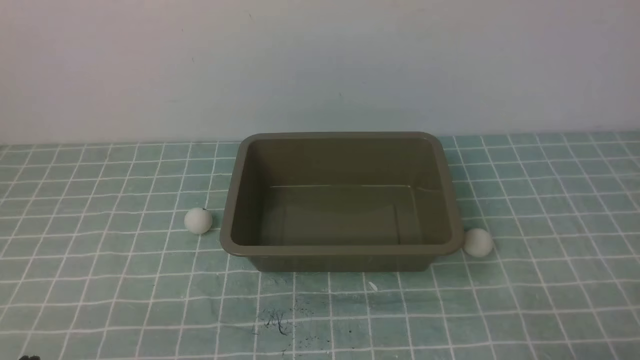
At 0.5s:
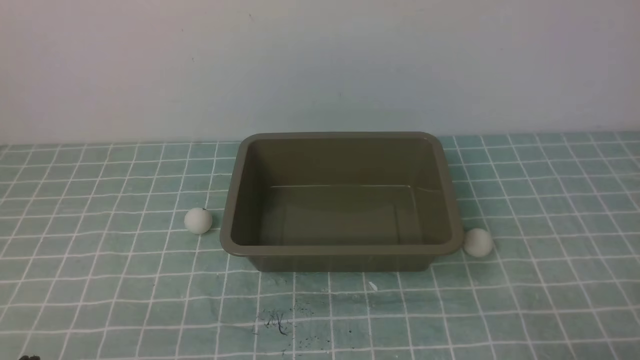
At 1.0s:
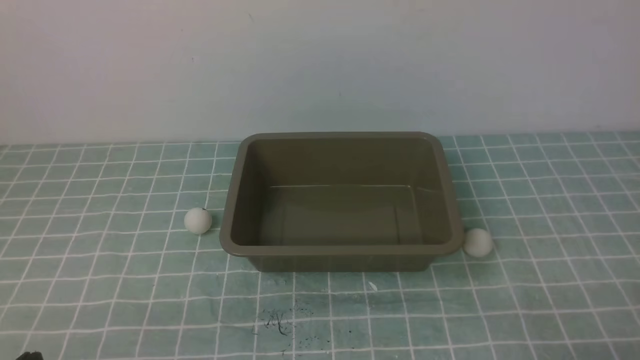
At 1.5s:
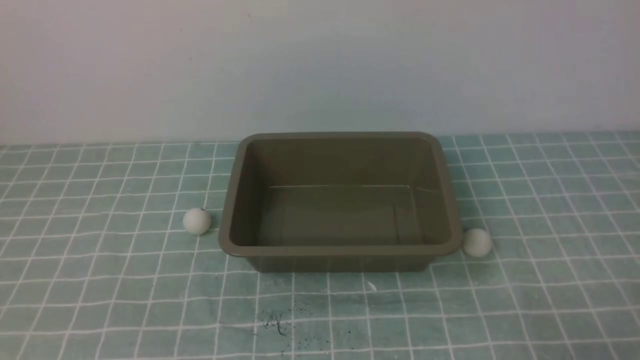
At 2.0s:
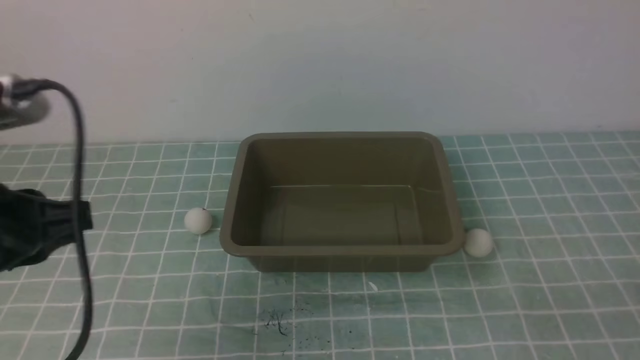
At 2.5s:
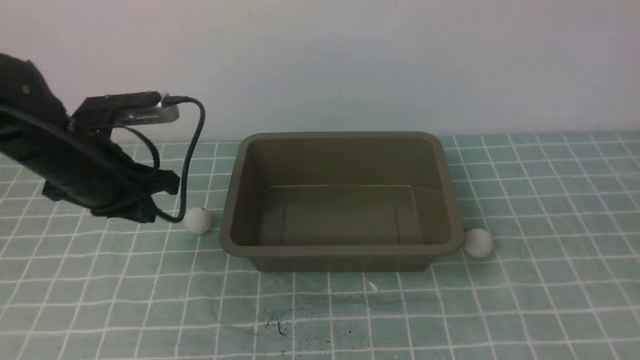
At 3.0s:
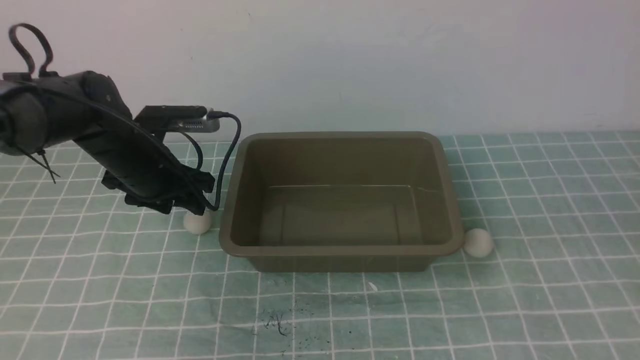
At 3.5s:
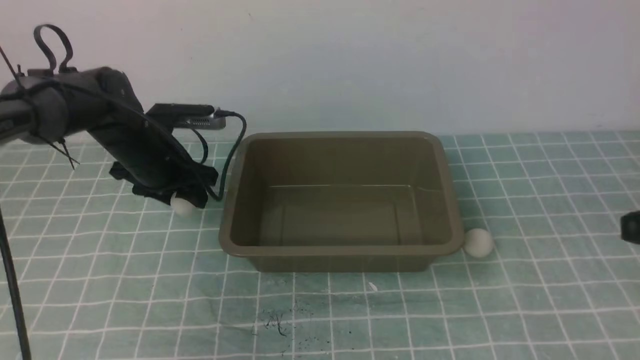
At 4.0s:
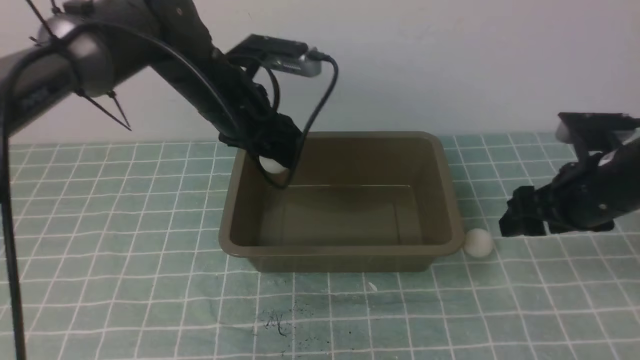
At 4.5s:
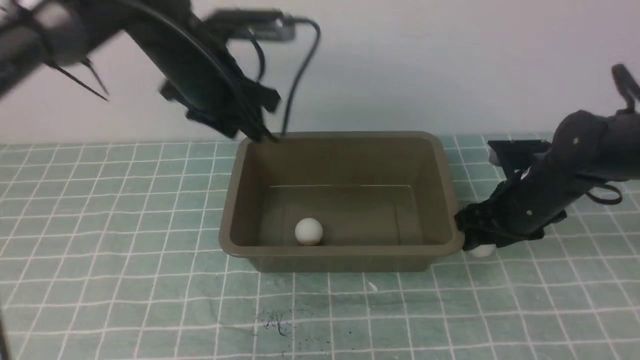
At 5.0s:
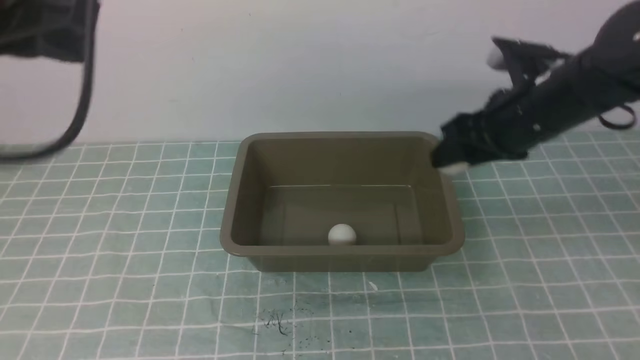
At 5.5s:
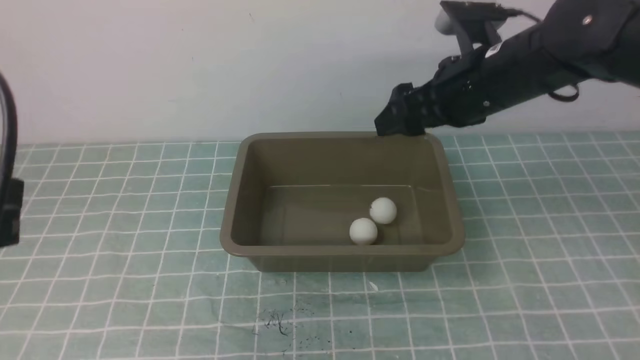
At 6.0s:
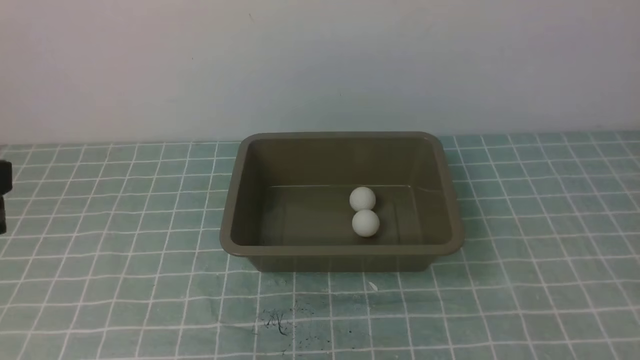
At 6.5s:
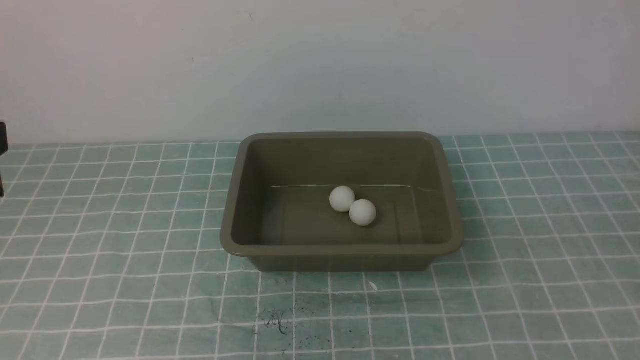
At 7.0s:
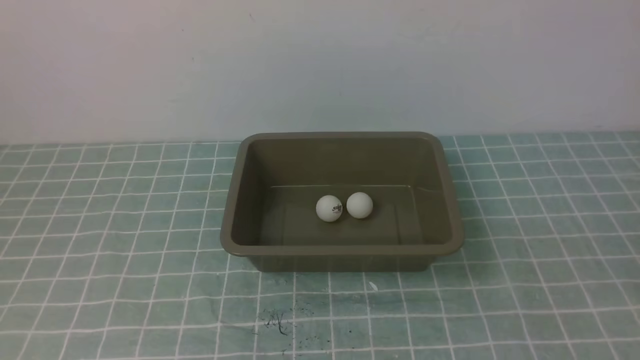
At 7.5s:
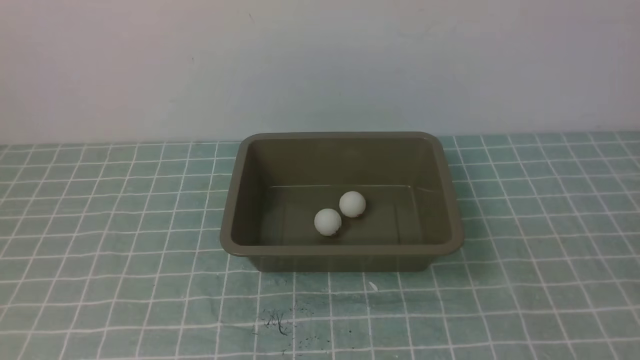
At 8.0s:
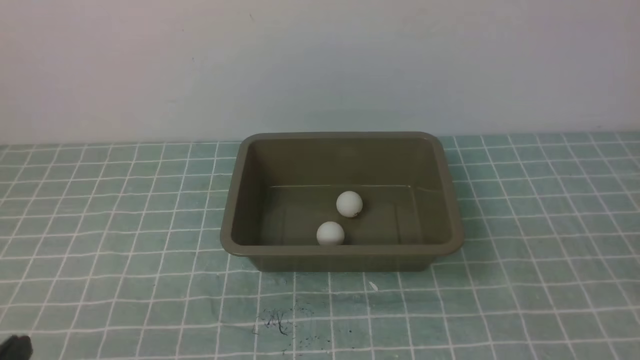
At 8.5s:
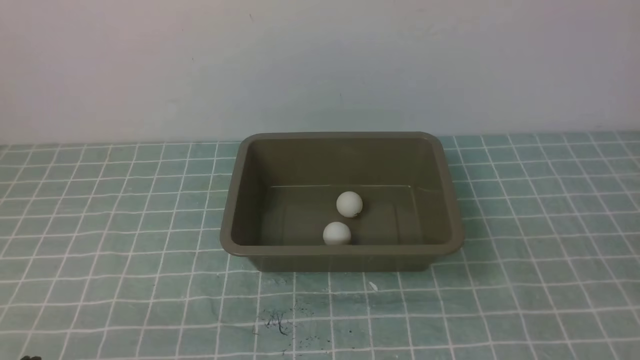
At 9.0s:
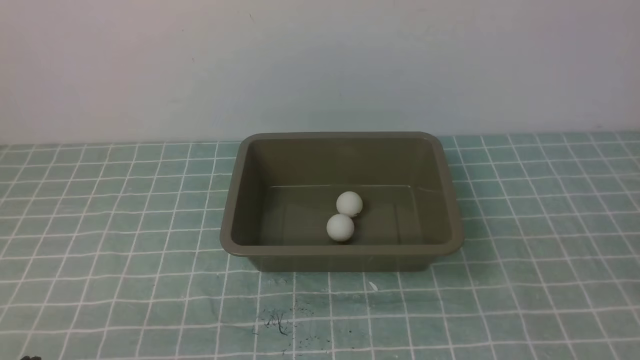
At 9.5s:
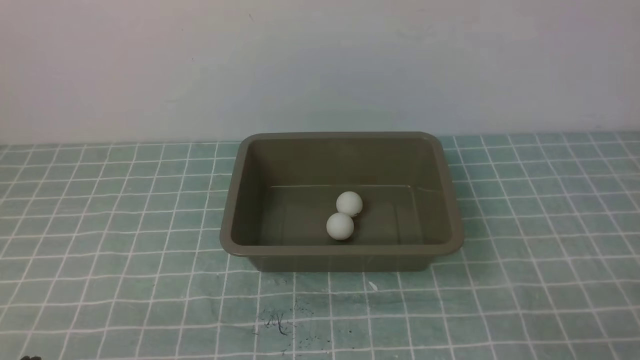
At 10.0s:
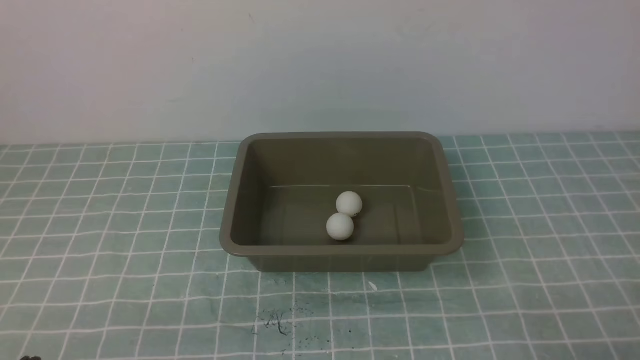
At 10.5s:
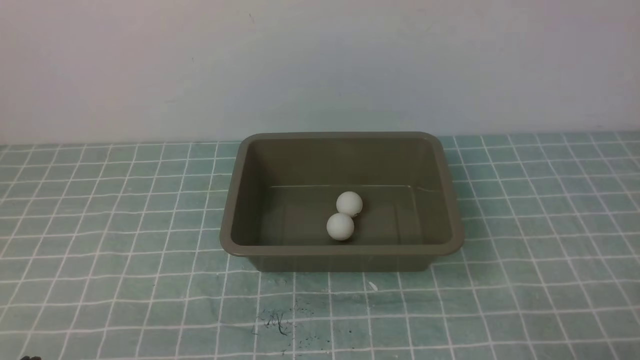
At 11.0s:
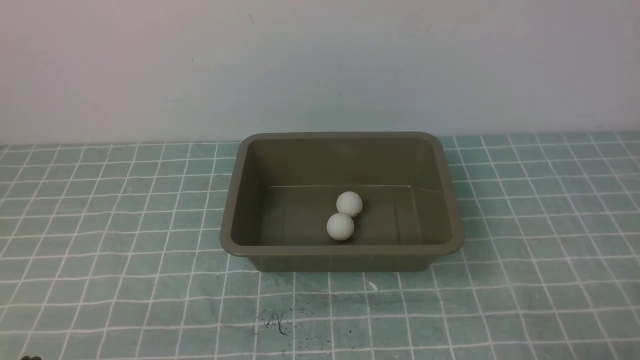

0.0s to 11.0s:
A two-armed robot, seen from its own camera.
Step, 0.0s to 3.0s: use the left arm to clamp the table tennis ball closest to it.
Step, 3.5s to 4.0s: use the left arm to put the table tennis ball into the box.
0.0s to 2.0s: The right gripper shifts approximately 5 cm upward. Meanwhile the left gripper heads upward and forward, covering some 20 cm.
2.0s to 3.5s: The left gripper goes about 25 cm forward and downward, and opens its fingers. The right gripper goes some 15 cm forward and upward.
3.5s to 5.5s: The right gripper travels forward and to the left by approximately 20 cm, and opens its fingers; the left gripper heads backward and upward, covering some 35 cm, and closes.
5.5s to 7.5s: The left gripper moves backward and downward, about 10 cm. The right gripper heads backward and to the right, covering about 35 cm, and closes its fingers.
